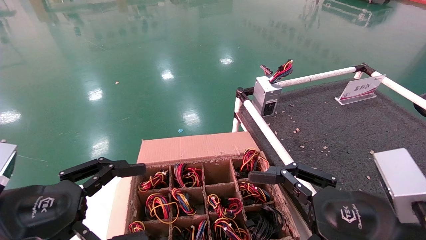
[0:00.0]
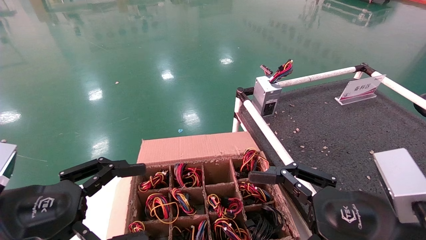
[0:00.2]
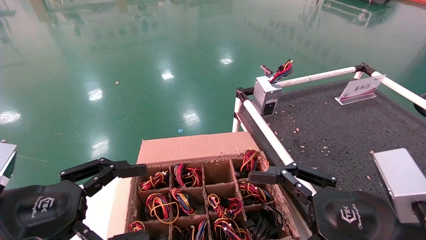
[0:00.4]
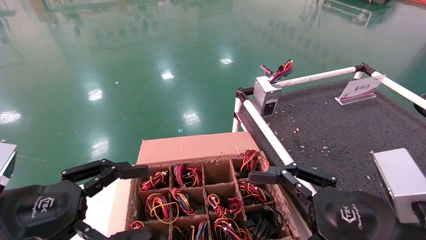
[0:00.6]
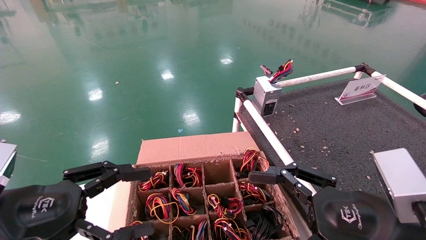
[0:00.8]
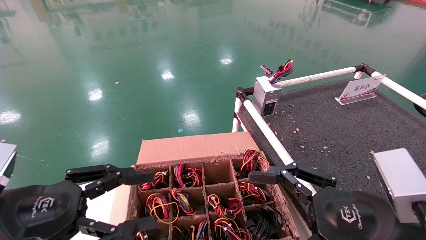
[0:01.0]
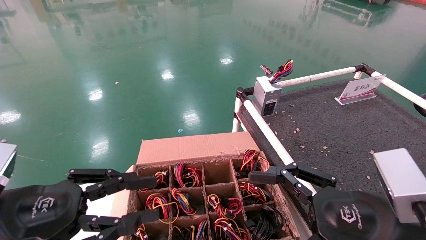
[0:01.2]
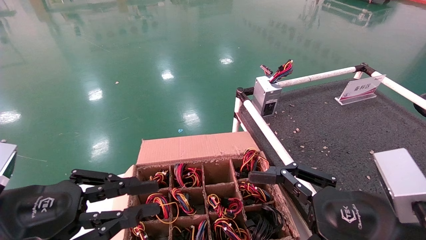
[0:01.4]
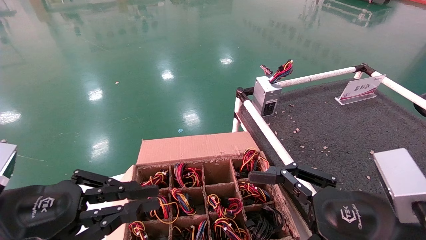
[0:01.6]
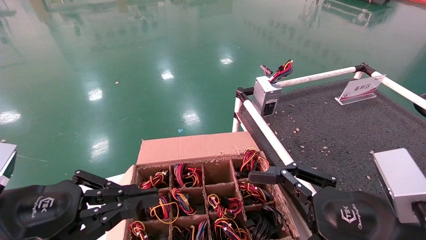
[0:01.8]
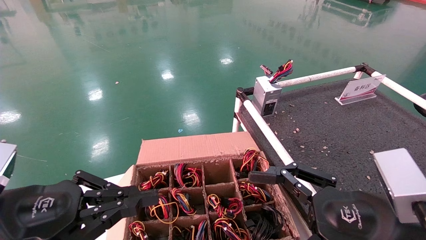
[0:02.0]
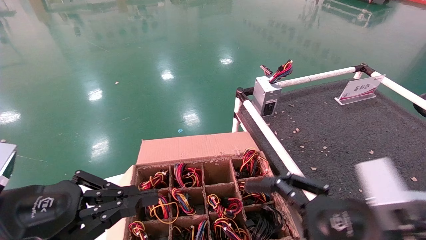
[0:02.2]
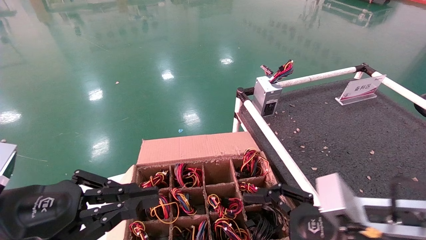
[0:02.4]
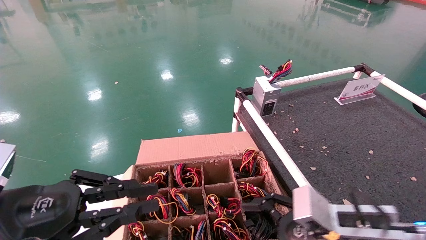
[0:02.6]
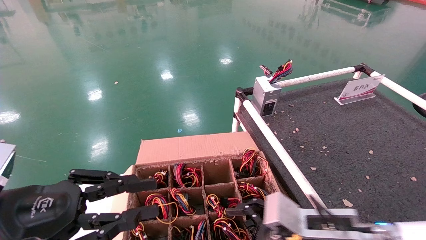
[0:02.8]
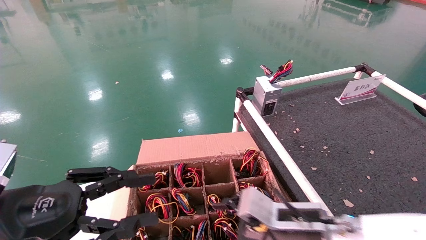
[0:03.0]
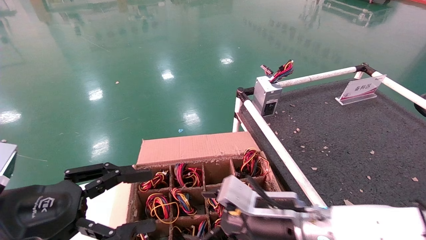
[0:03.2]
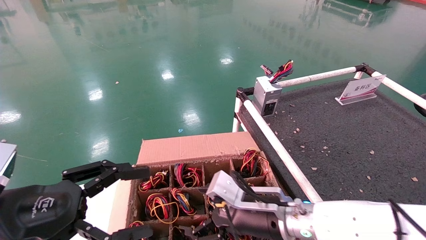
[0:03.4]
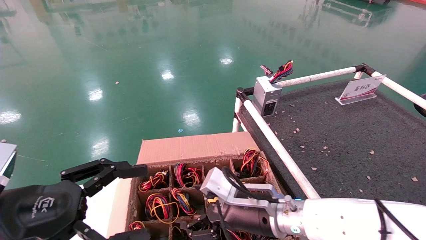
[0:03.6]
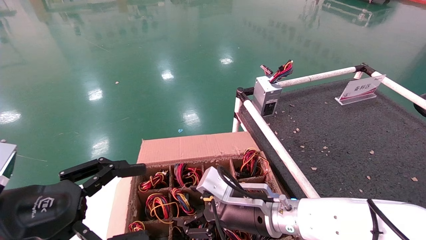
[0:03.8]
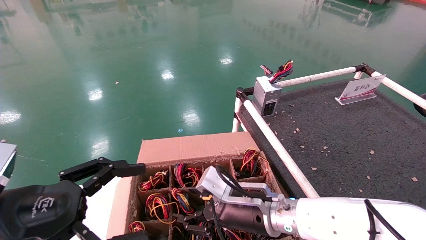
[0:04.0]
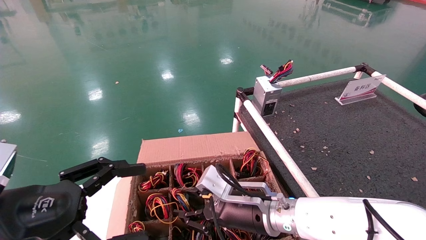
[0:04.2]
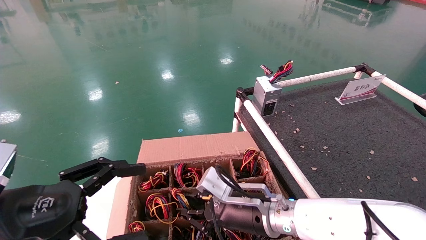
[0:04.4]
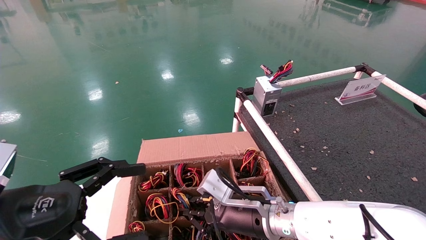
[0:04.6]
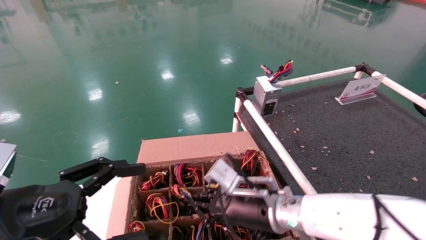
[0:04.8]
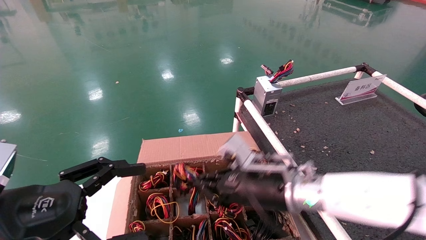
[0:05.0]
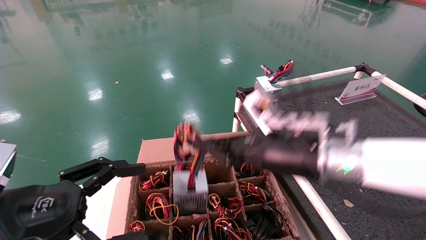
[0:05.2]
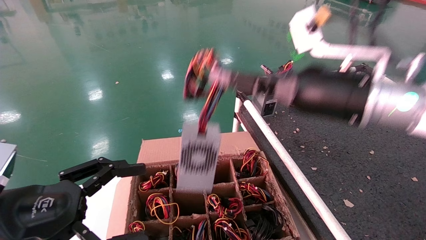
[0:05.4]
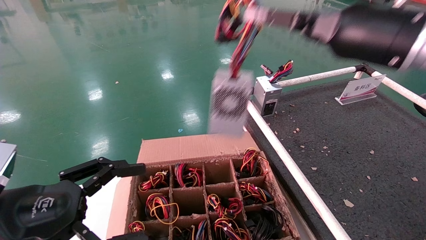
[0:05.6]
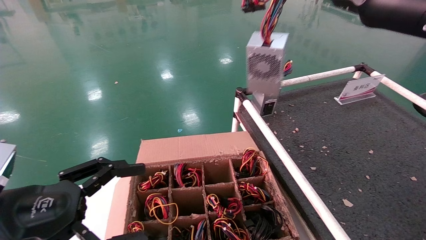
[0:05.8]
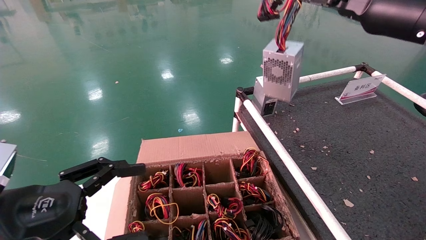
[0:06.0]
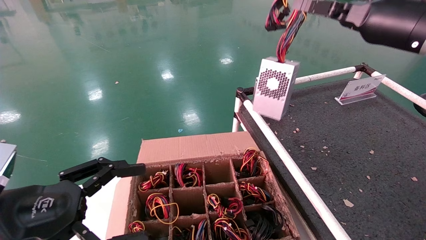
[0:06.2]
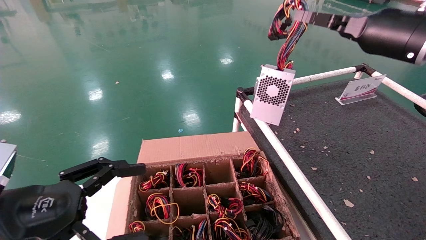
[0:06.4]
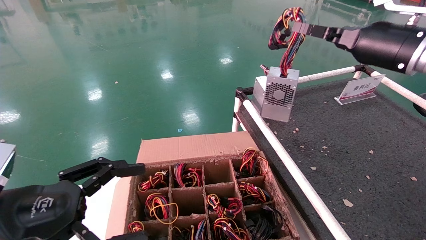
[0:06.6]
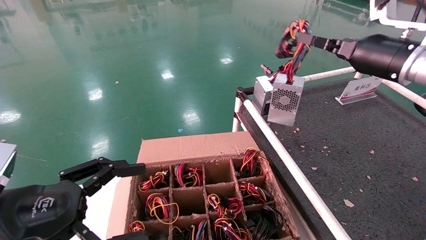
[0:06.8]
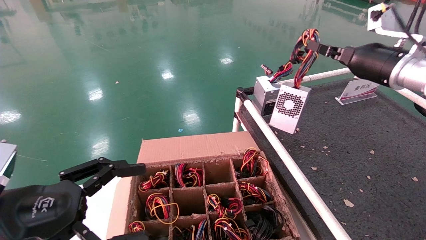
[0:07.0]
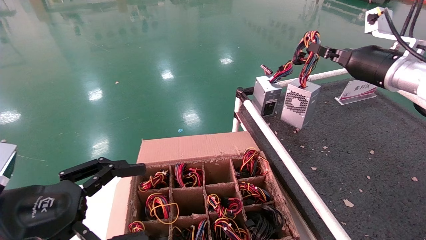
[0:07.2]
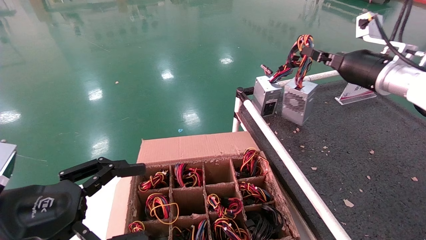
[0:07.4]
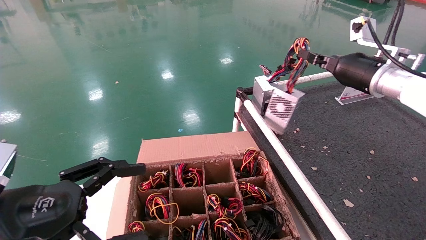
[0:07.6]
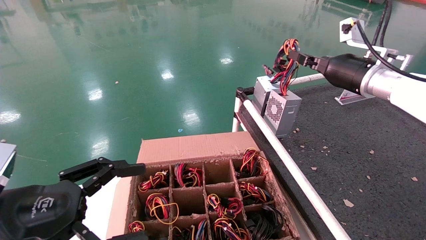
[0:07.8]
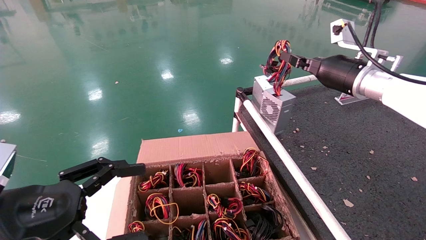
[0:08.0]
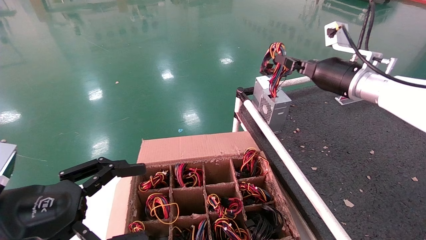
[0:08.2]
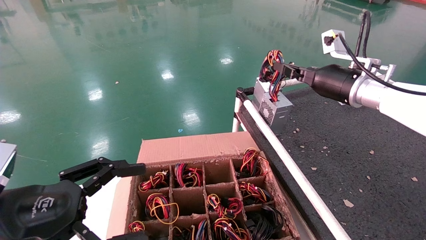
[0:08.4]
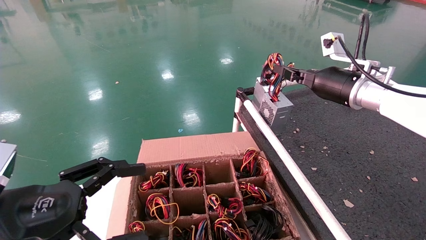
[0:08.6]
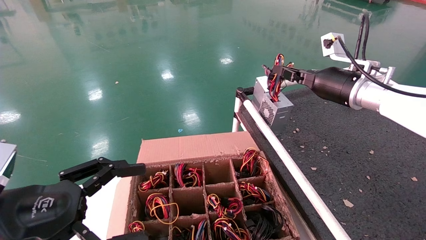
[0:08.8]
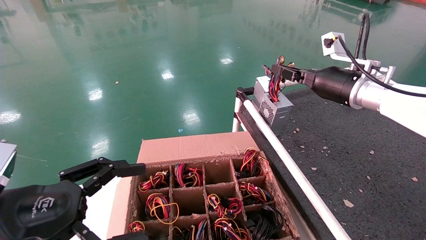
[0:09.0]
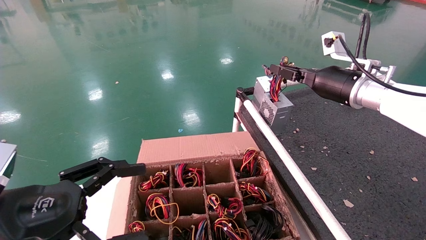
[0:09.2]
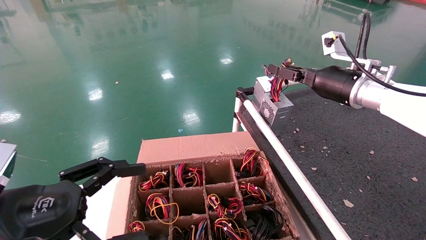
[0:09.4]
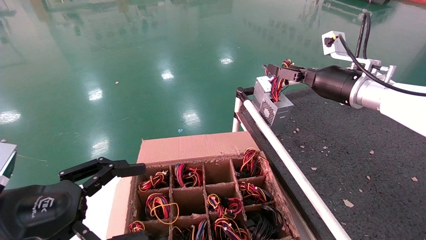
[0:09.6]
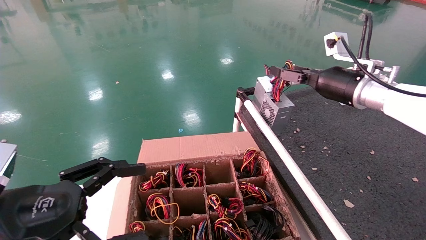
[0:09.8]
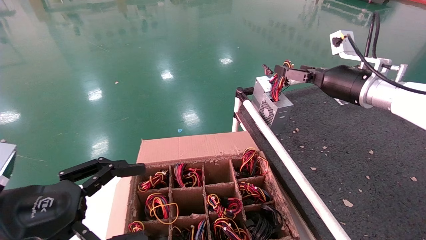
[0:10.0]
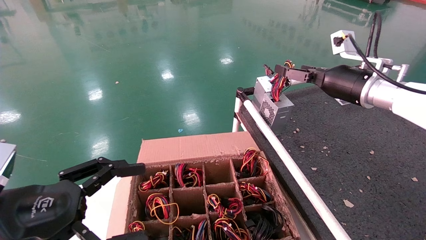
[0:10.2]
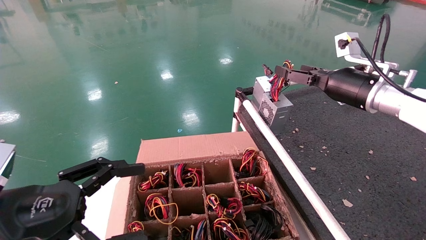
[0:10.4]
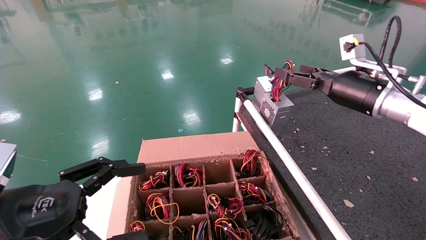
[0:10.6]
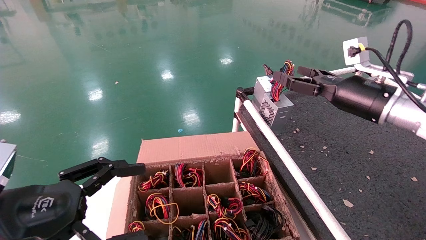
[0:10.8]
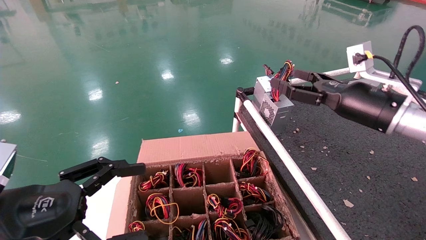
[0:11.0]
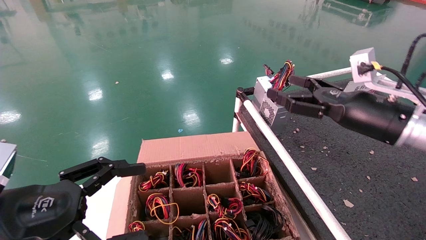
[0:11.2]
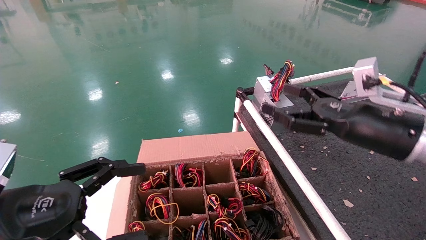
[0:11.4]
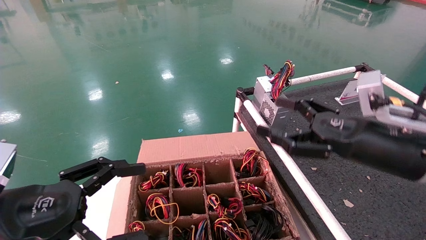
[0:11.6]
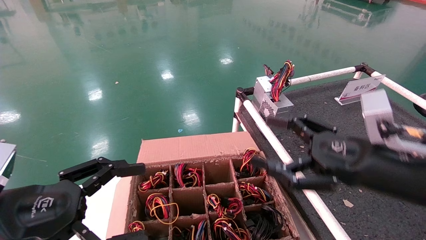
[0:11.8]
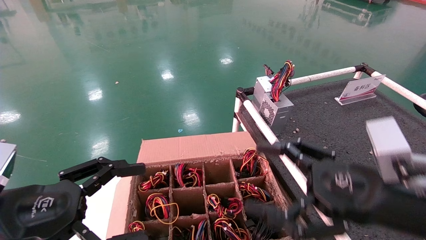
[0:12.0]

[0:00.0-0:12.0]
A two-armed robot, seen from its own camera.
Step, 0:02.6 to 0:05.0: Grab and lift the power supply from the large box.
Step, 0:05.2 to 0:09.2: Place the power supply on the operating table.
0:00.0 to 0:01.6: The left gripper closes its fingers.
0:01.6 to 0:03.0: The right gripper moves forward, to the left and downward, roughly 15 cm.
0:03.0 to 0:04.4: The right gripper is displaced to the left by approximately 5 cm, and closes its fingers, while the left gripper opens its fingers.
0:04.4 to 0:06.0: The right gripper is displaced upward and to the right by some 40 cm, and closes.
0:06.0 to 0:07.6: The right gripper heads forward and downward, covering roughly 15 cm.
0:07.6 to 0:09.0: The grippers make only small movements.
0:09.0 to 0:10.4: The right gripper opens up.
0:10.4 to 0:12.0: The right gripper goes about 25 cm backward and downward.

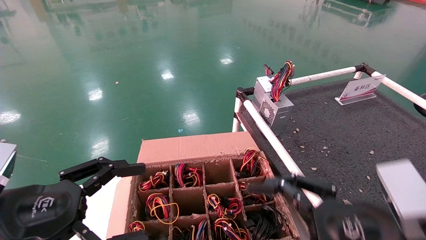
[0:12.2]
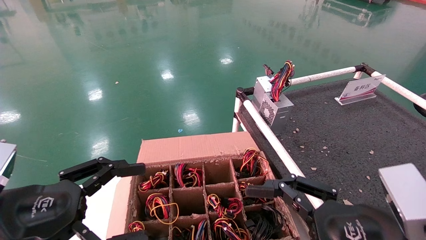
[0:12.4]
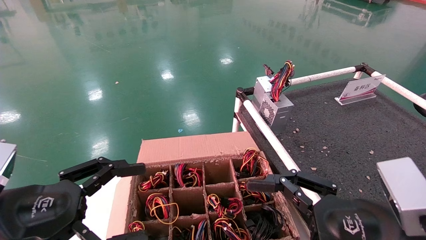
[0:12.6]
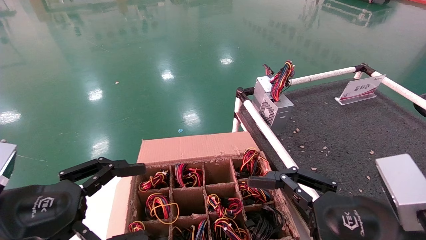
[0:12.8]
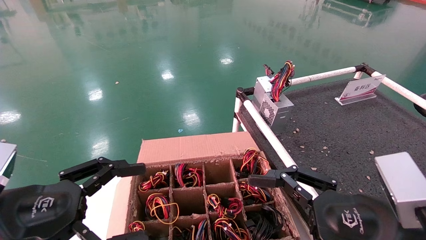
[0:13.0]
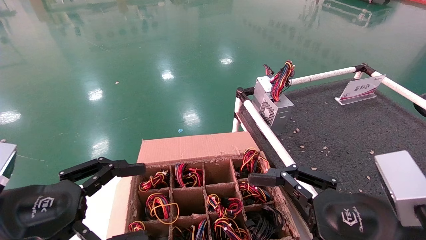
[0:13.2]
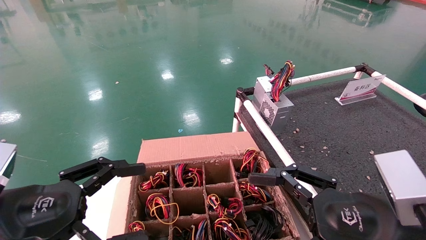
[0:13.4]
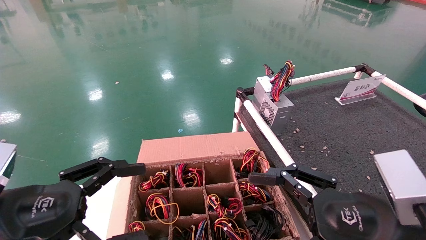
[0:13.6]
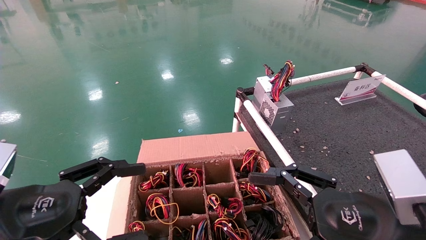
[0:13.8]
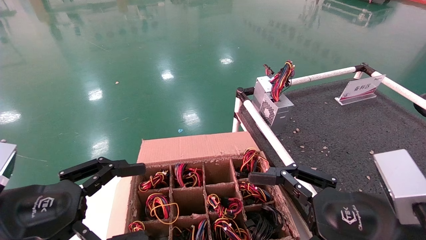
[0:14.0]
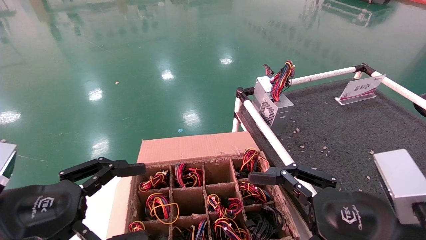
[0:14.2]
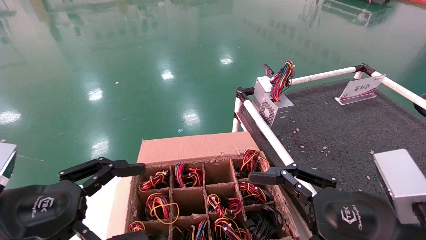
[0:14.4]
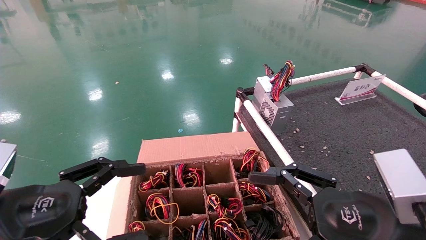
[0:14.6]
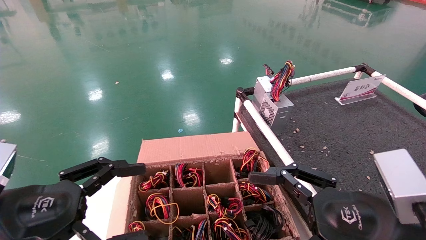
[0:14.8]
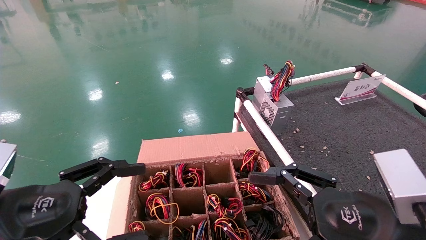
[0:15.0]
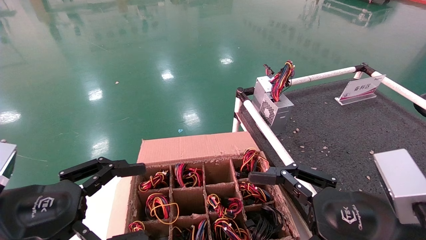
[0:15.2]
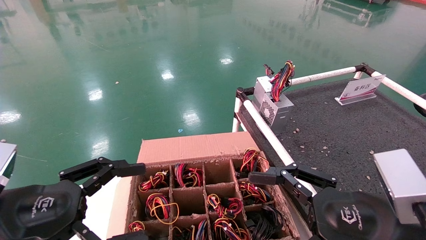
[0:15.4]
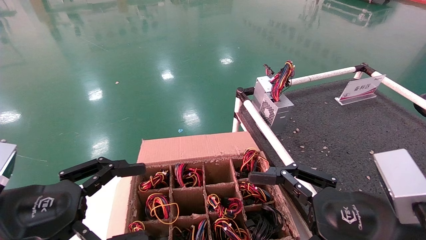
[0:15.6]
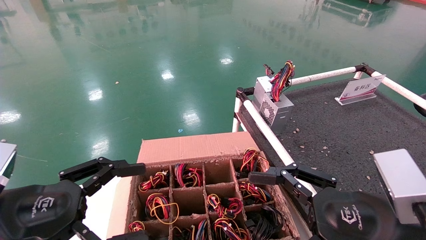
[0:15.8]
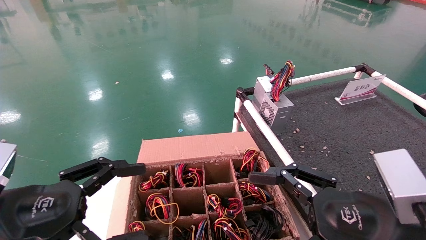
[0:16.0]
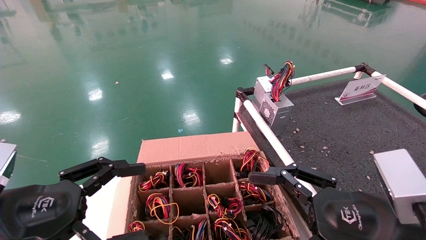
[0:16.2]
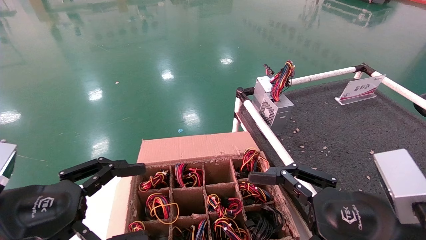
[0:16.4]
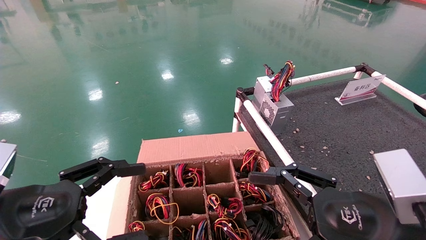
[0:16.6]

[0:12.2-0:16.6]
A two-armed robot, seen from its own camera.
0:12.2 to 0:16.6: Neither gripper changes place.
